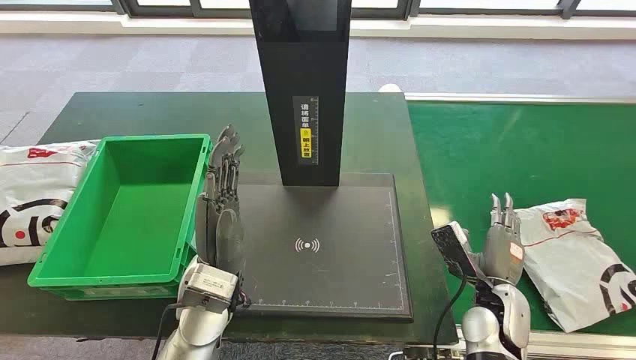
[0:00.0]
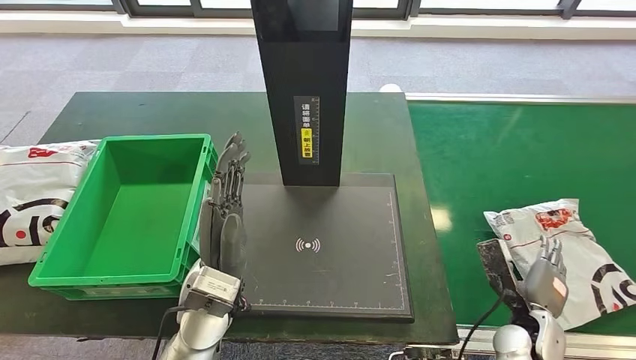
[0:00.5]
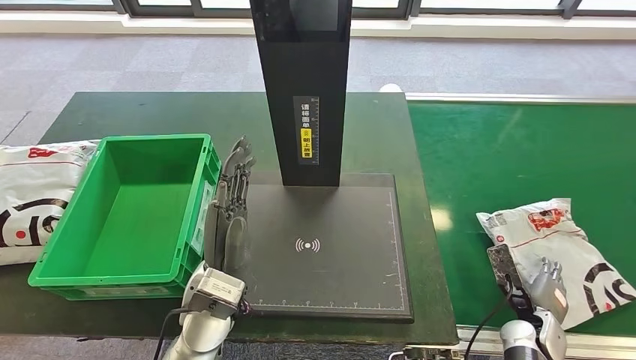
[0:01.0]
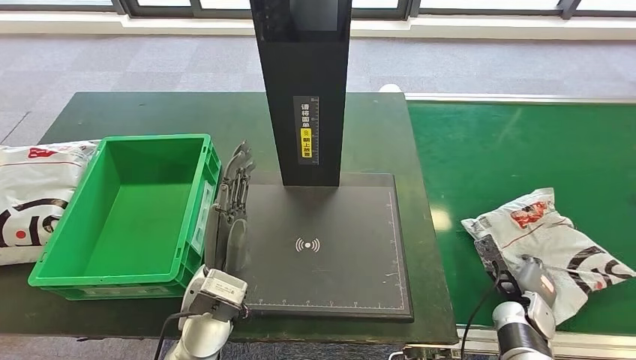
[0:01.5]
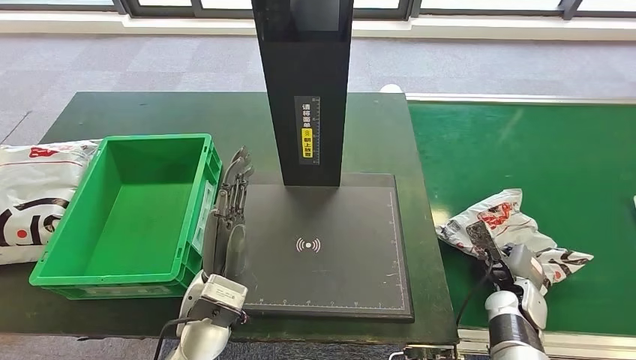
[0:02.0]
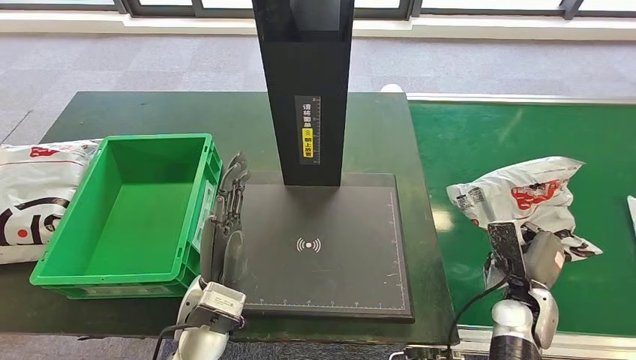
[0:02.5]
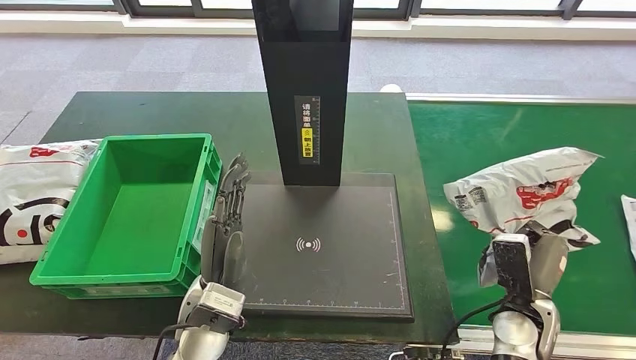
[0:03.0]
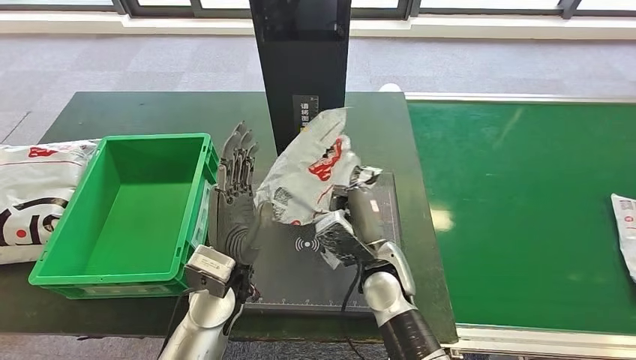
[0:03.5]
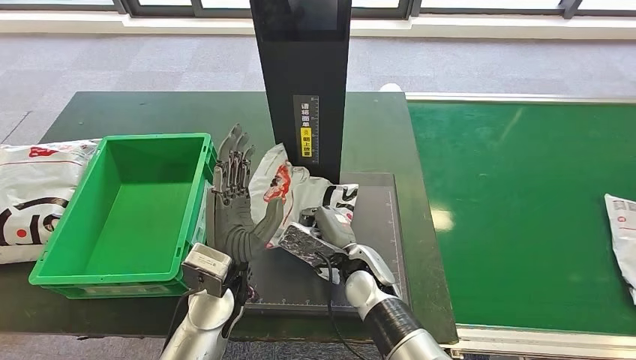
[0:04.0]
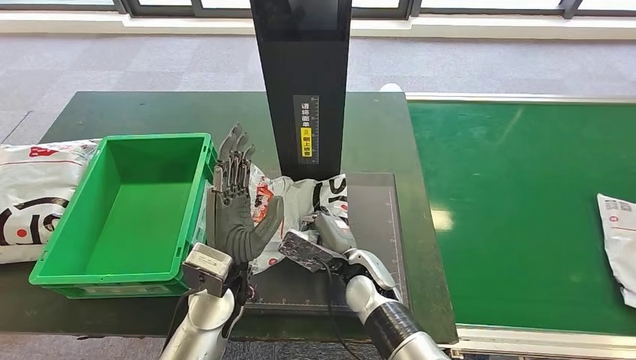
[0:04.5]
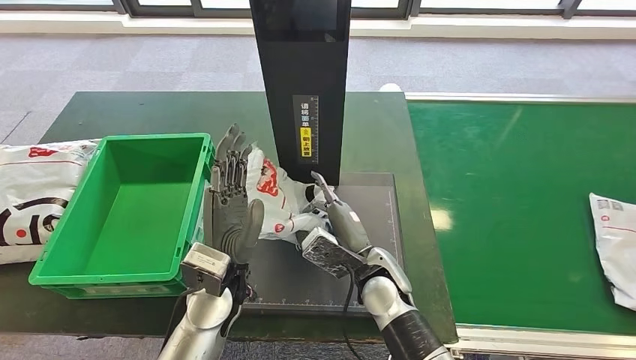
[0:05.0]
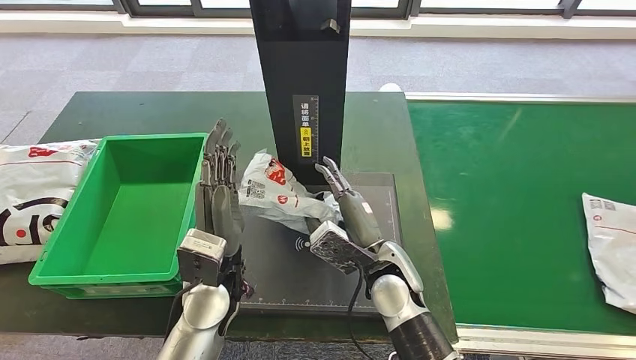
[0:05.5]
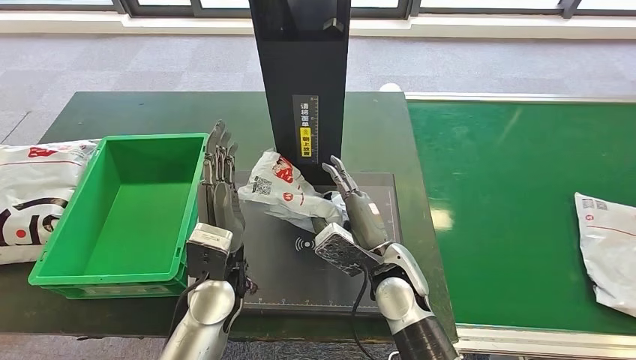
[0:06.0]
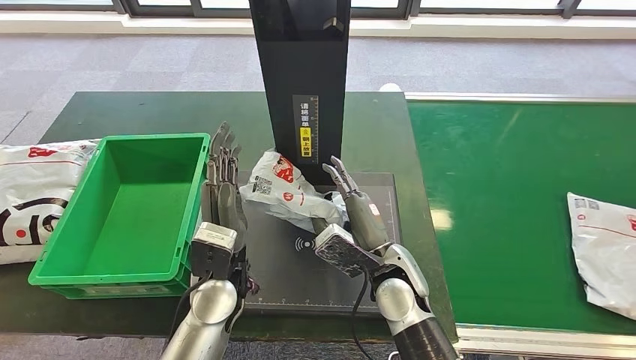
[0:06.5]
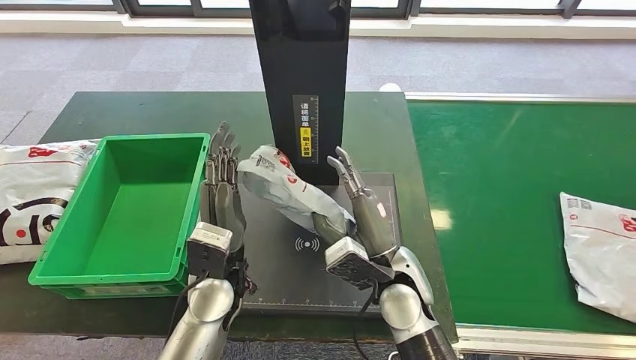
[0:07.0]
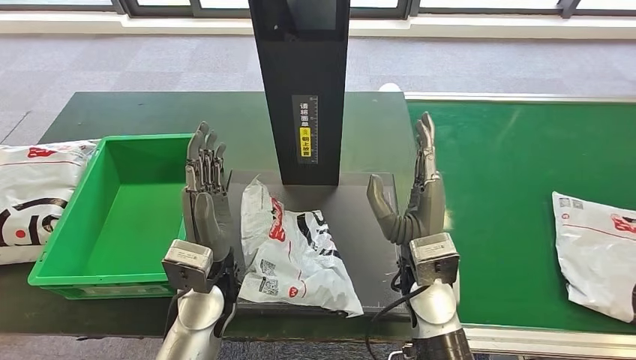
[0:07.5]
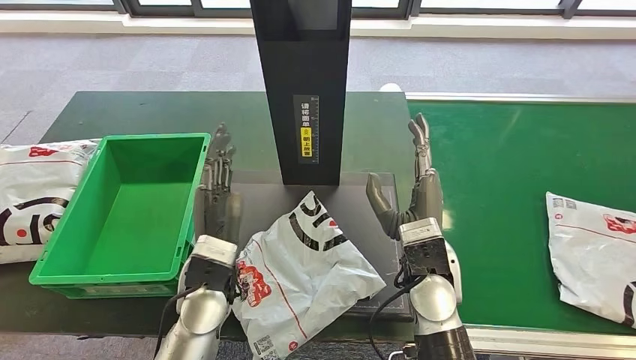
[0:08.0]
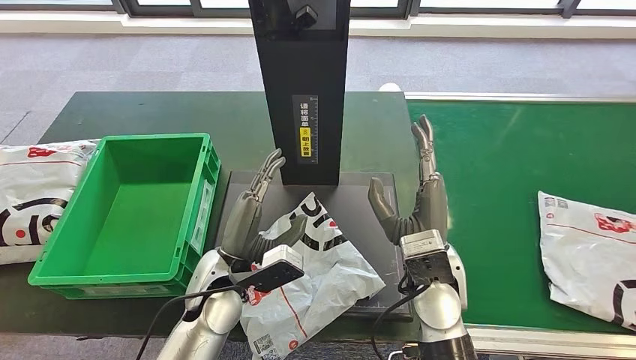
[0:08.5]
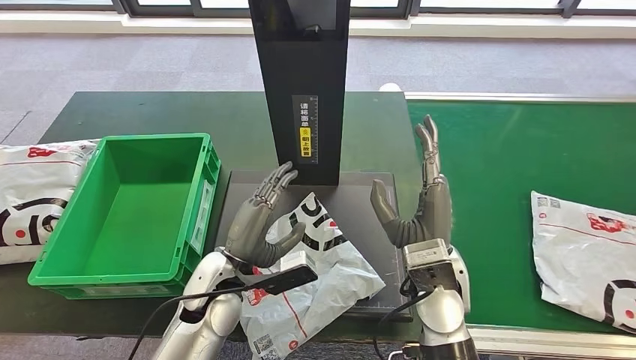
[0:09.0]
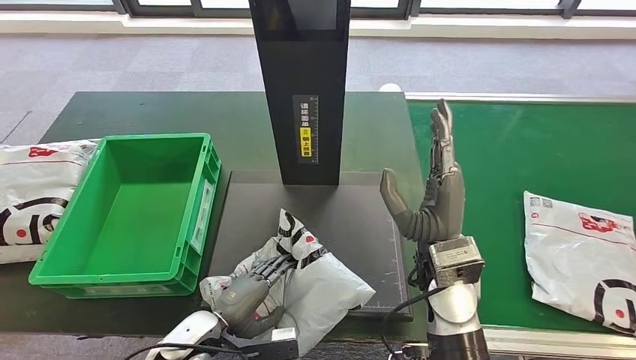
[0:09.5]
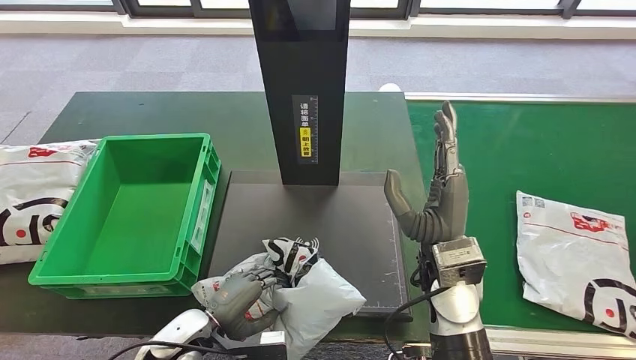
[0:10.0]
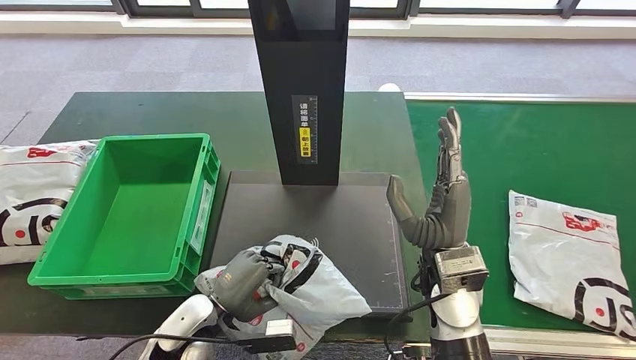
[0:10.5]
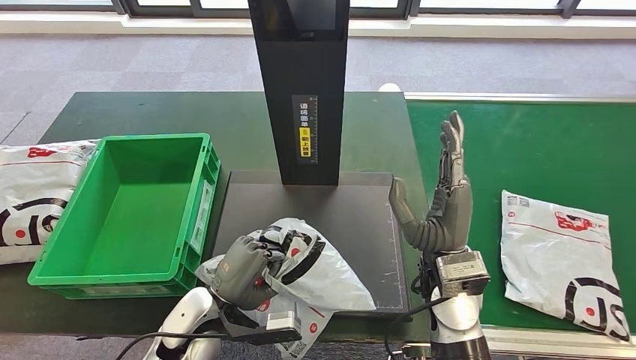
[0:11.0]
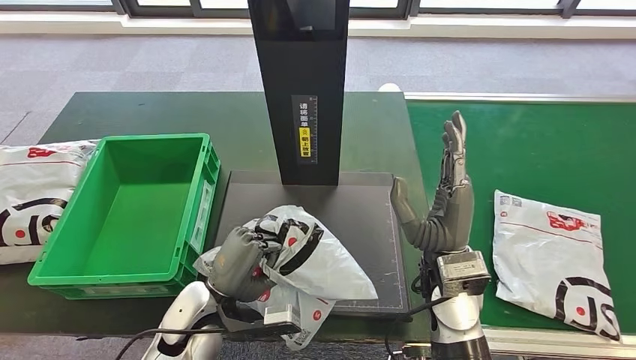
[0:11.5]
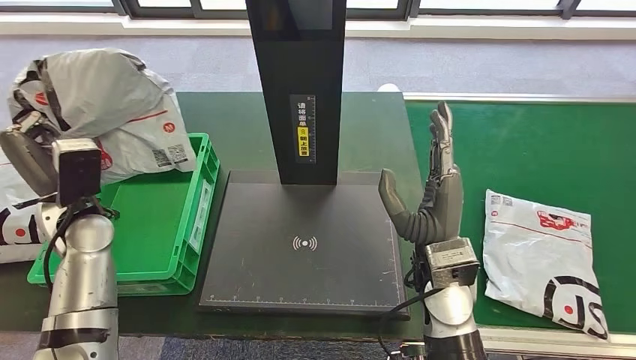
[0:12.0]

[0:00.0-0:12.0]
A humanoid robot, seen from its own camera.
Step, 0:00.0 to 0:02.5: Take the parcel off the conveyor belt.
Step, 0:03.0 to 0:07.5: Place the parcel onto the inbound machine.
Step, 0:08.0 to 0:11.5: Pick up the parcel from the inbound machine.
0:04.0 to 0:06.0: The right hand changes place by about 5 cm.

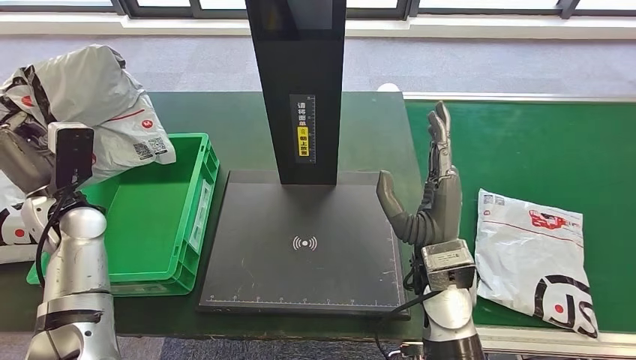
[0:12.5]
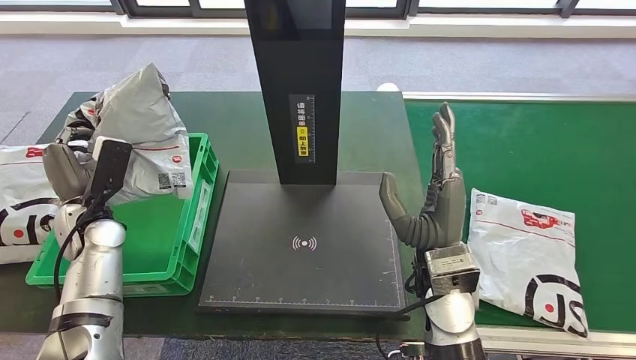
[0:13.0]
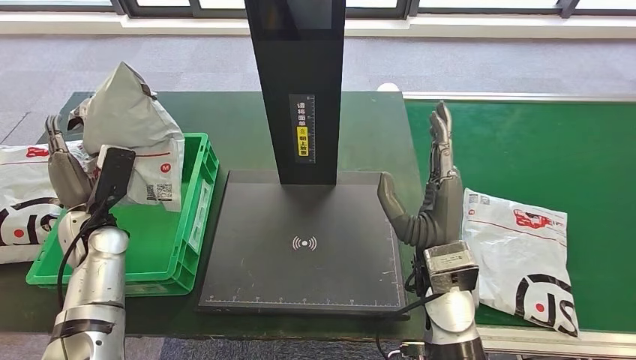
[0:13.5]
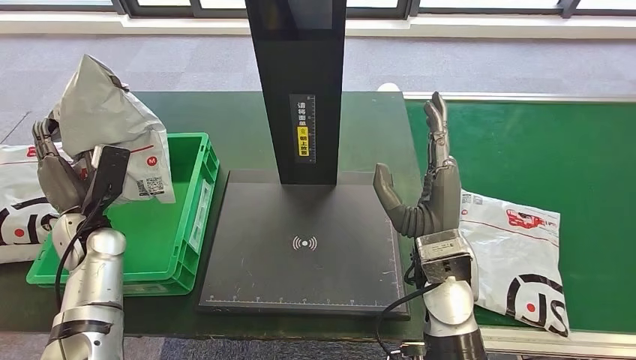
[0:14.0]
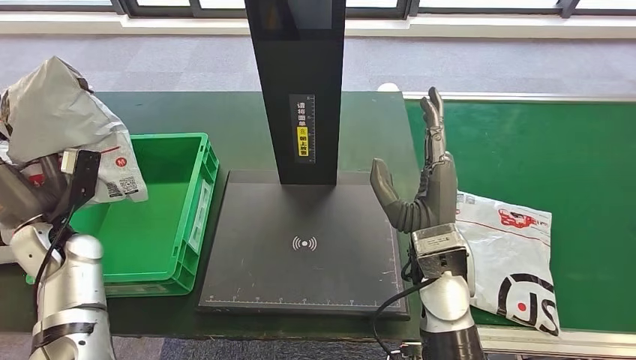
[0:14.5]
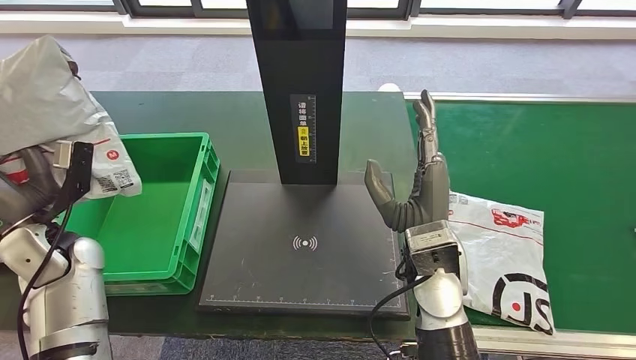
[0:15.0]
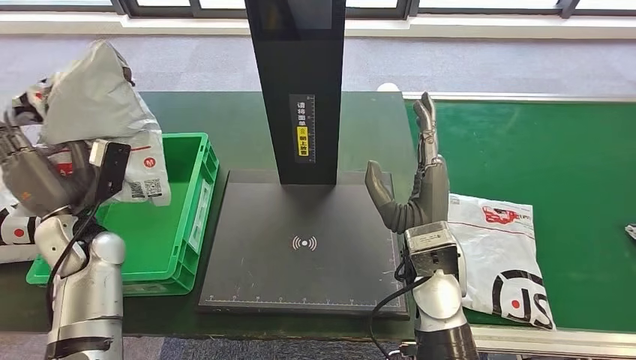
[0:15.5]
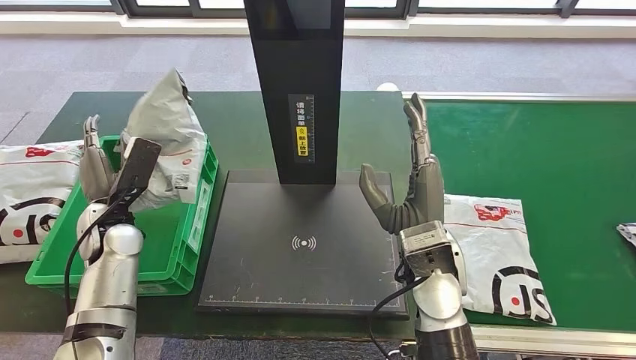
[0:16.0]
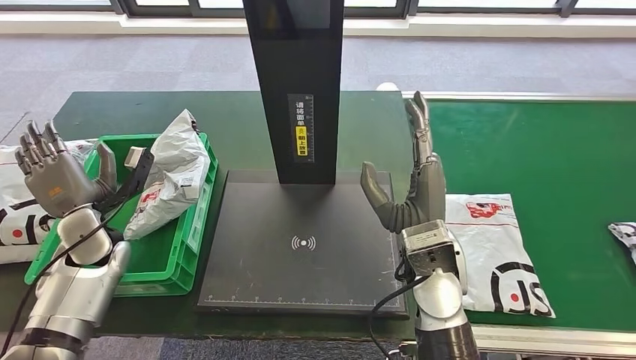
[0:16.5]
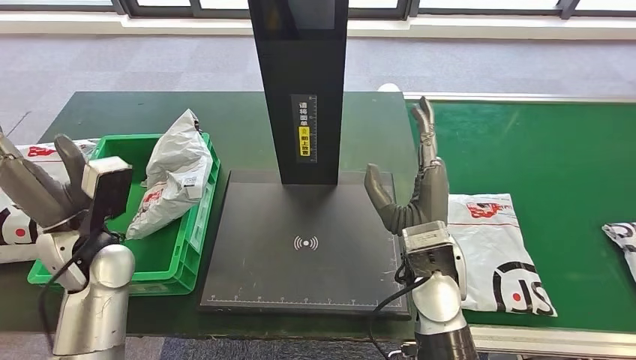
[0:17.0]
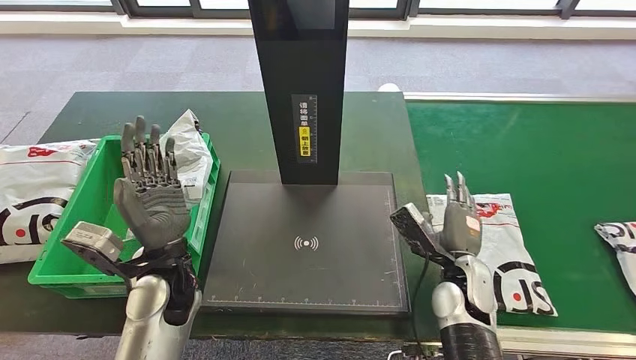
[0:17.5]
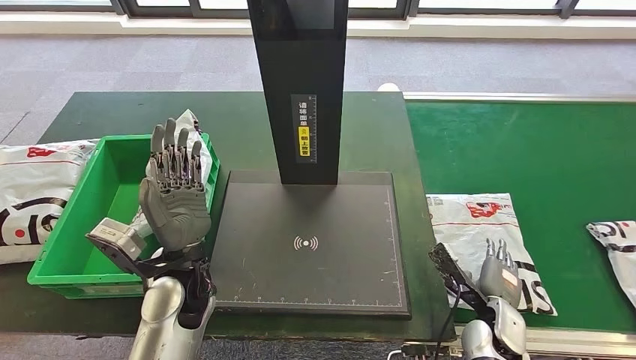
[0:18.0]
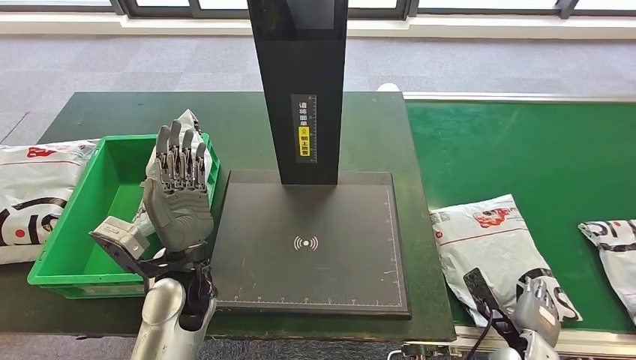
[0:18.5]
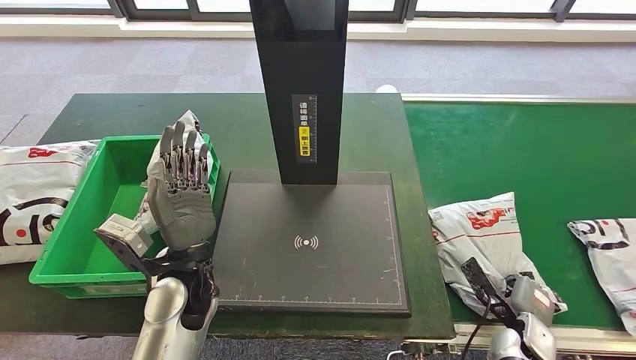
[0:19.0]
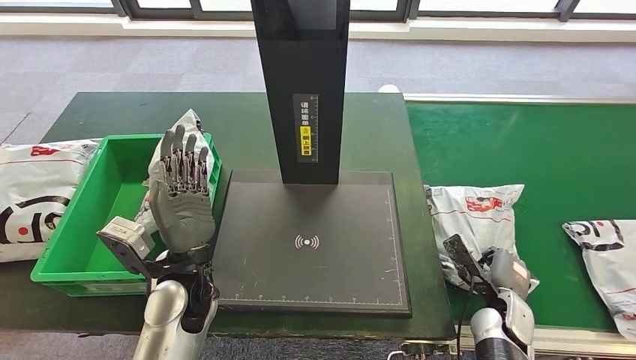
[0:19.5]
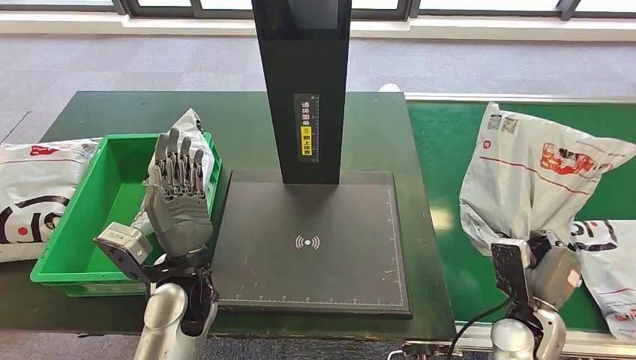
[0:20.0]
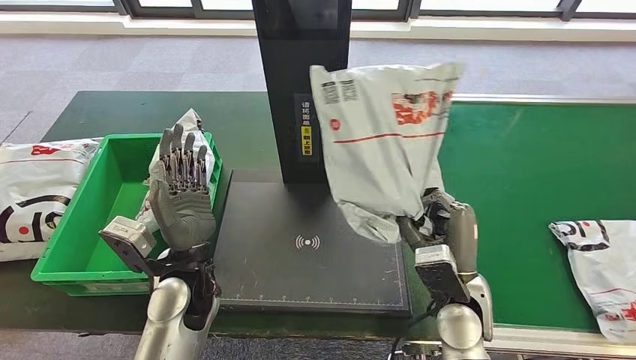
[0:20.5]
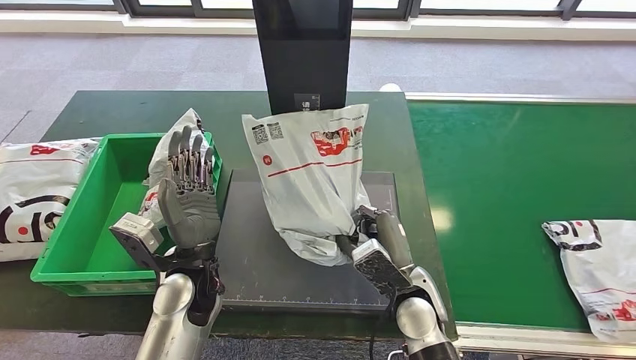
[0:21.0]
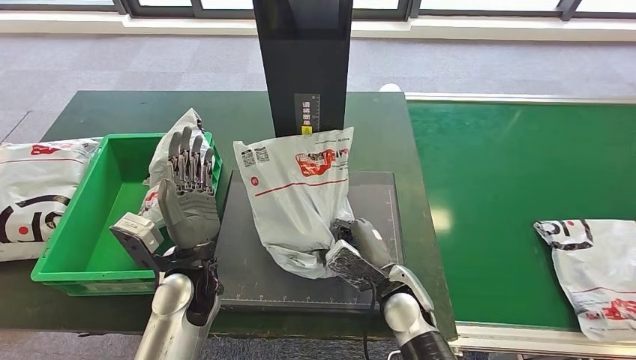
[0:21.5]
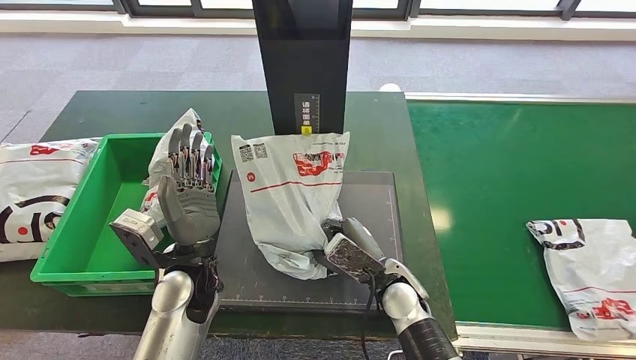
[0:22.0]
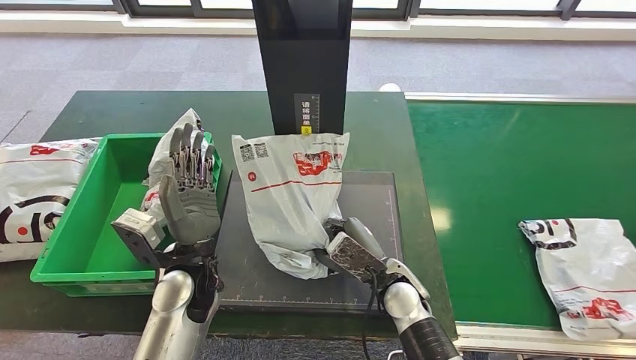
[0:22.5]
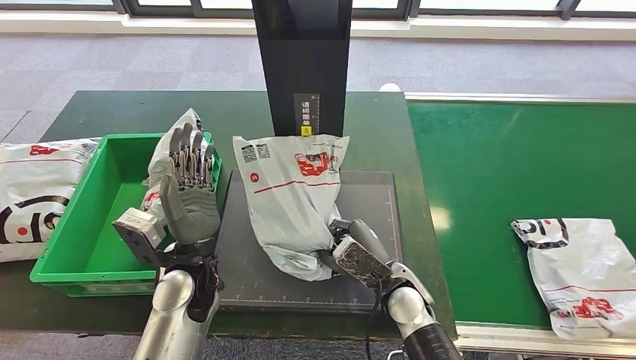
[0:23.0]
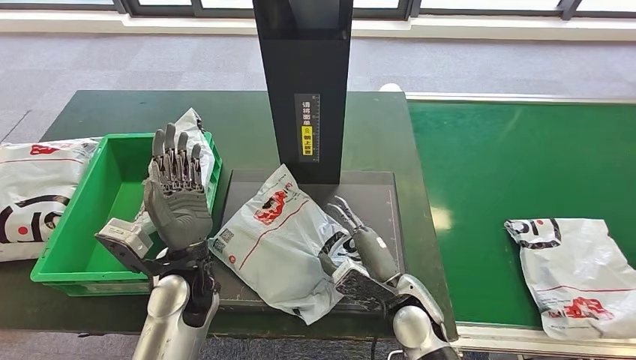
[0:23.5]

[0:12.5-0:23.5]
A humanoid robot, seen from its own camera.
Step, 0:12.5 to 0:17.0: Put the parcel inside the courier box.
Step, 0:17.5 to 0:20.0: Pick up the parcel from the conveyor belt.
0:21.5 to 0:23.5: There are only small adjustments of the hands.
